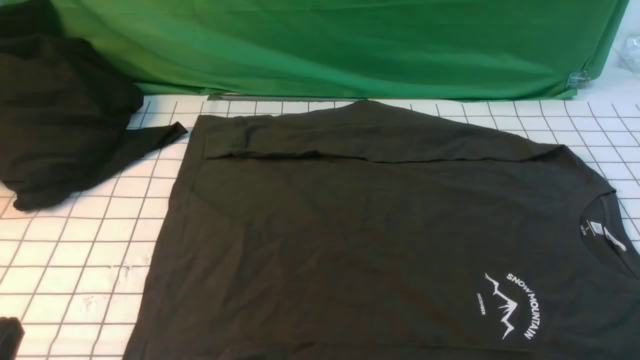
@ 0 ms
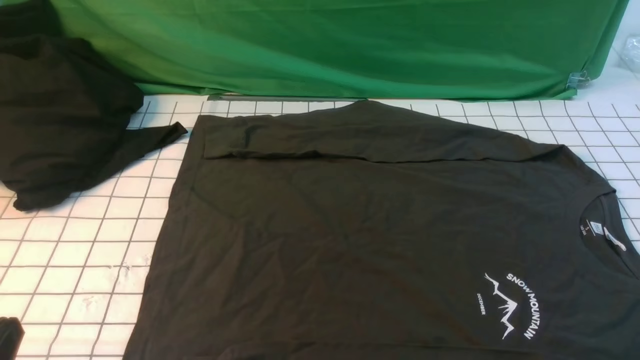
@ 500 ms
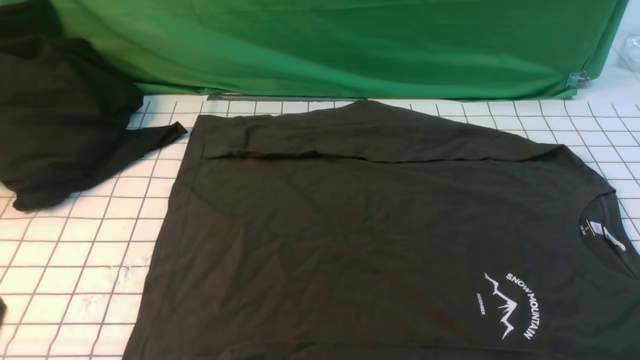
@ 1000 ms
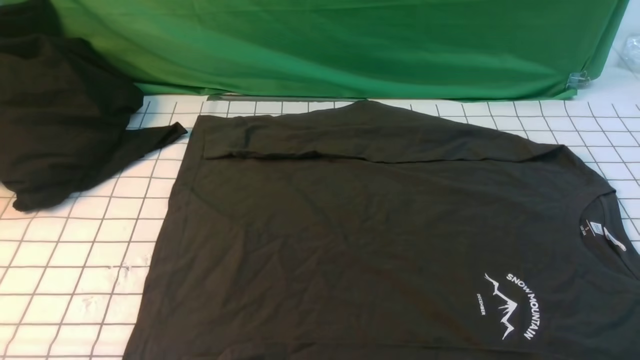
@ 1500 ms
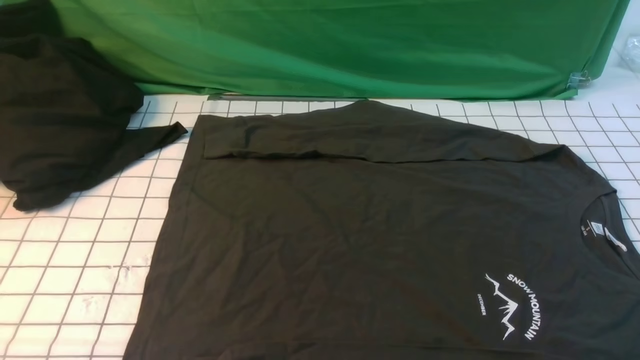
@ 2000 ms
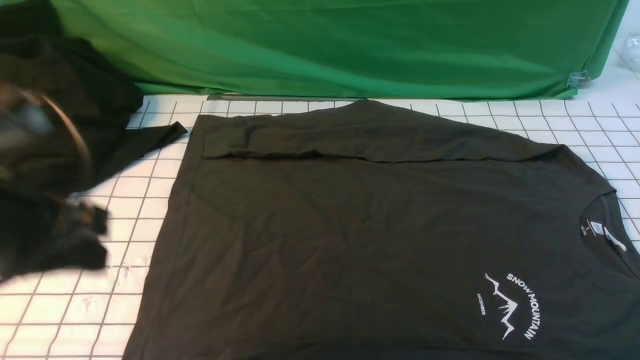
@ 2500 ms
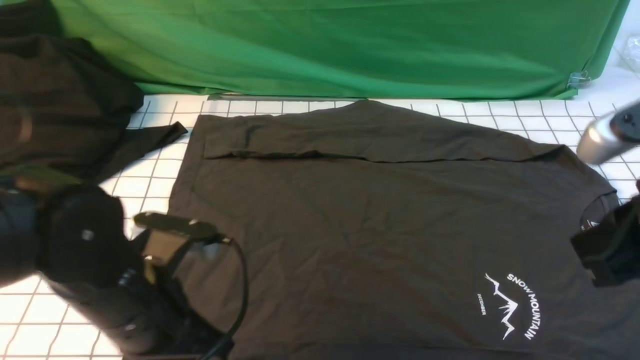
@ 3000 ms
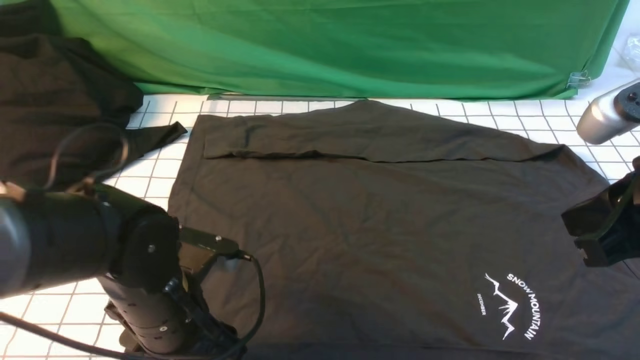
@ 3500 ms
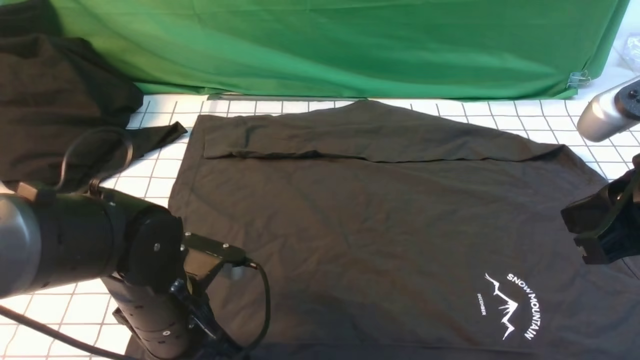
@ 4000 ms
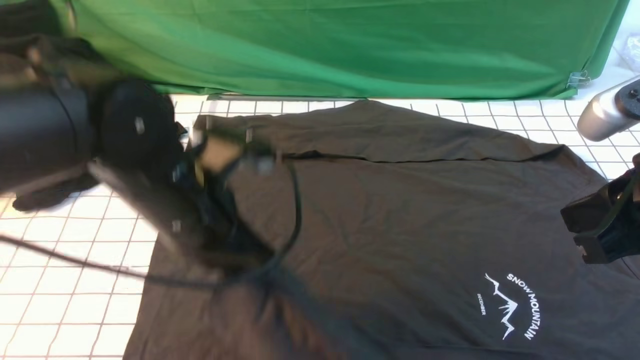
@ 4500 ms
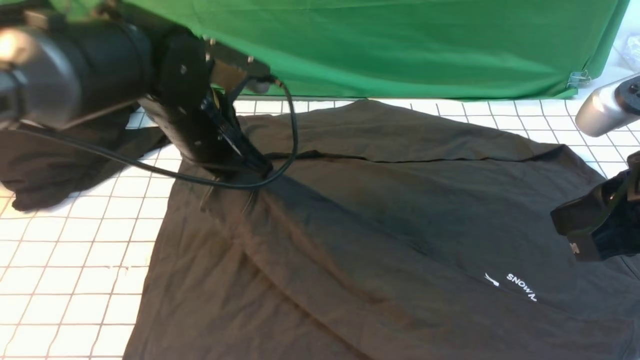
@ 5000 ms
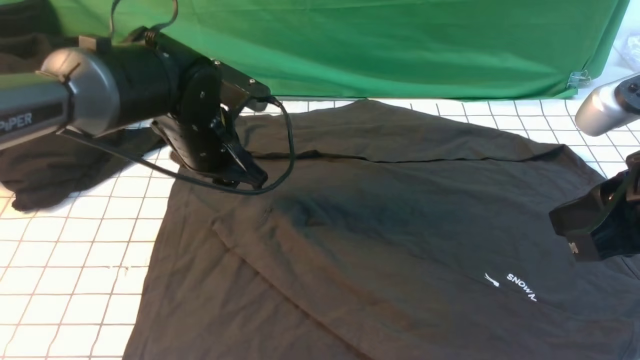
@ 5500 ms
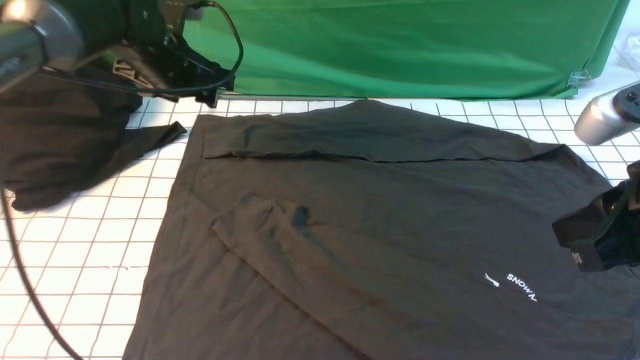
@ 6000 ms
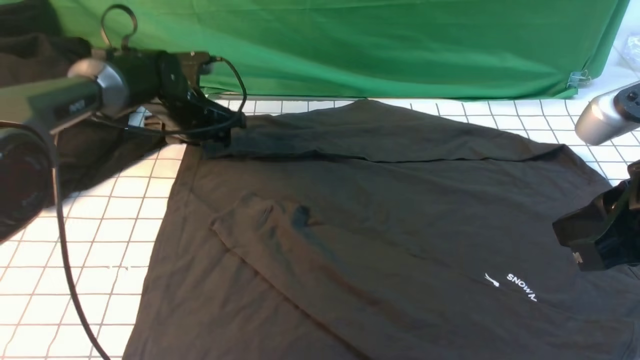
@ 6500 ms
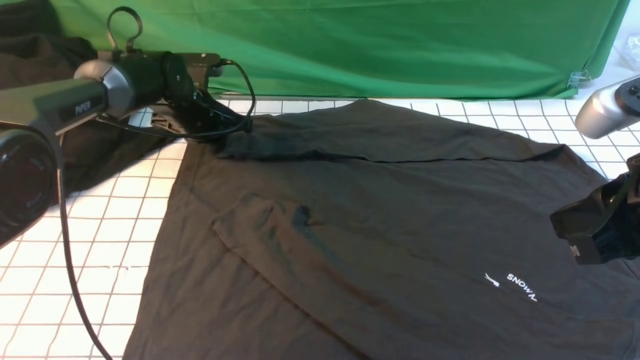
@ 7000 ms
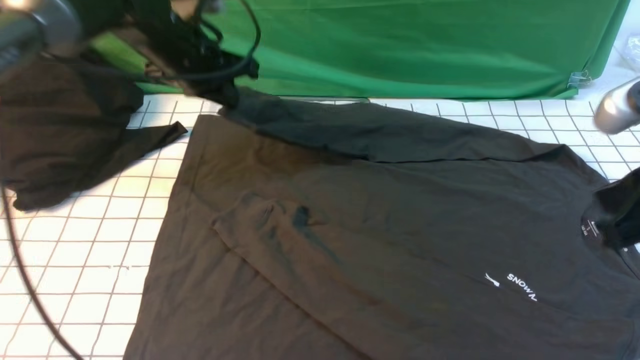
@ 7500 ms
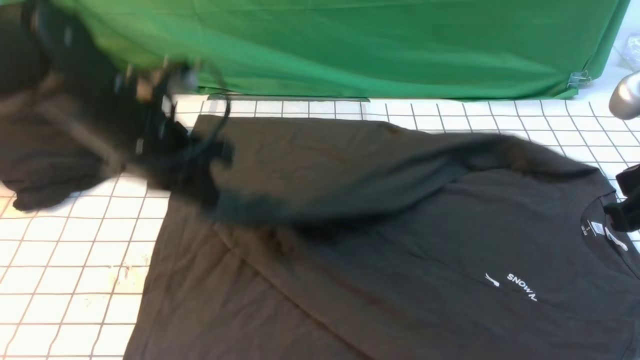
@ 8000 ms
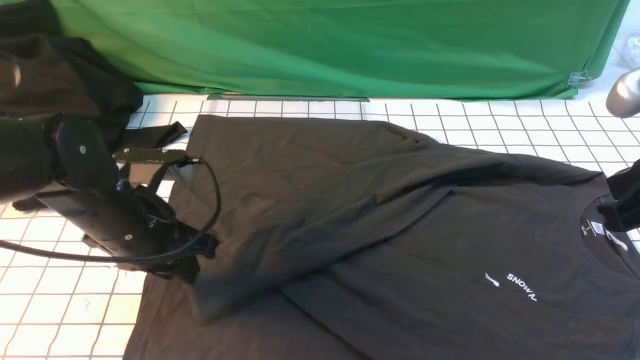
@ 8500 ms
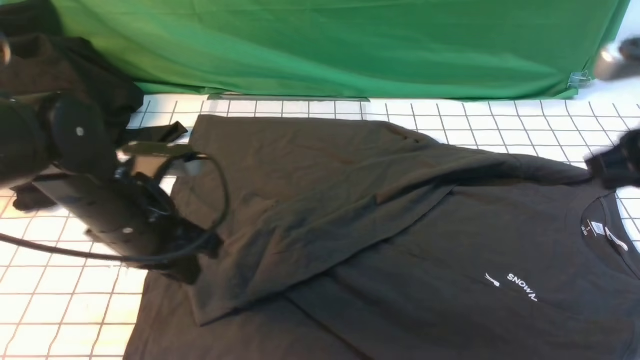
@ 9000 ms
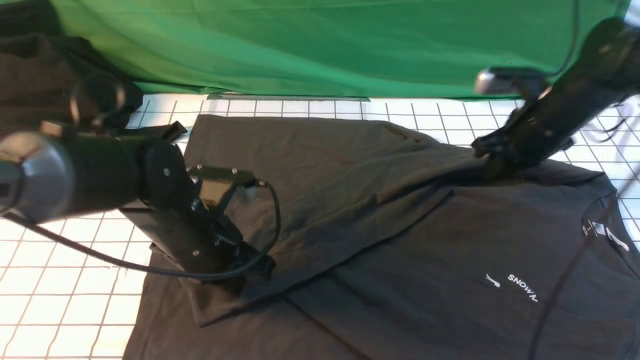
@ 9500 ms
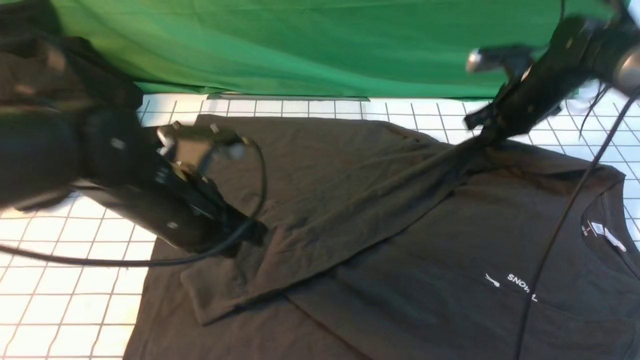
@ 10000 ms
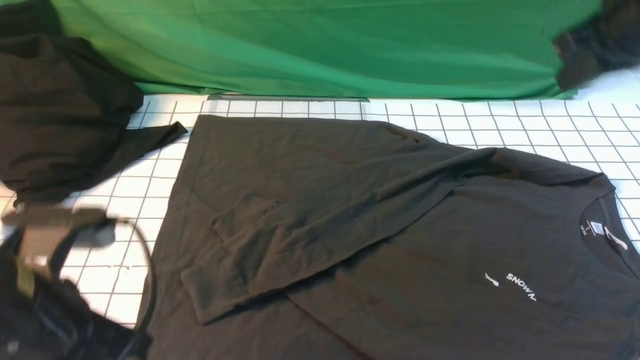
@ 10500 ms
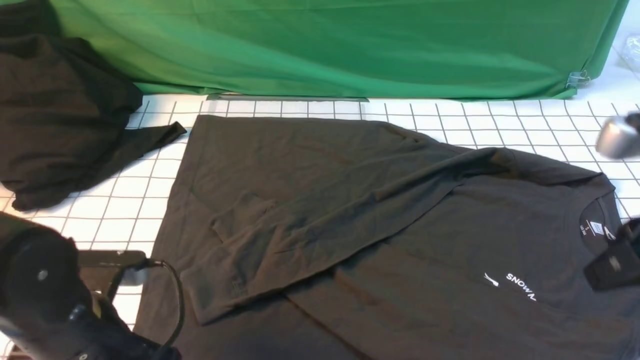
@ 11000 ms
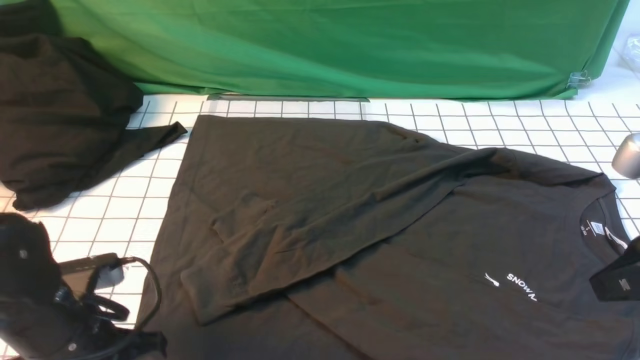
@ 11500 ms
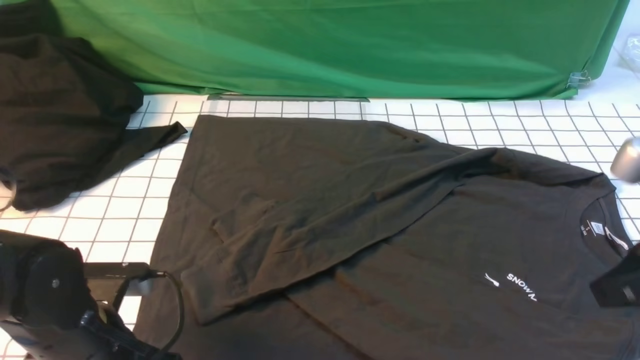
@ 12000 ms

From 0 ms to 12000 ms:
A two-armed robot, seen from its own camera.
Step, from 0 ms to 4000 ms: use the left arm to clamp the cuff closest to it.
Step, from 4500 ms to 5000 ms: use the left arm to drag and place the cuff at the centered position on the left edge of the fabric.
Step, from 5500 ms to 6500 ms: use the left arm to clamp the cuff farthest from it.
Step, from 7000 ms to 8500 ms: use the left arm to drag and drop the cuff onto the cuff closest to the left arm.
From 2000 ms to 4000 ms: The left gripper travels forward, downward and to the right by about 25 cm, and opens and closes again, while the right gripper shifts some 20 cm forward, to the left and upward.
From 4000 ms to 6000 ms: The left gripper heads forward, covering approximately 25 cm, and opens up.
From 6000 ms to 8000 ms: The left gripper travels backward by some 15 cm, and closes up.
From 8000 ms to 10000 ms: The left gripper goes roughly 5 cm backward, travels downward and back again, some 10 cm each way, and opens, then closes once more. The right gripper travels forward by roughly 30 cm.
From 10000 ms to 12000 ms: The left gripper is displaced downward, backward and to the left by approximately 15 cm, and opens and closes again. The right gripper goes some 30 cm backward.

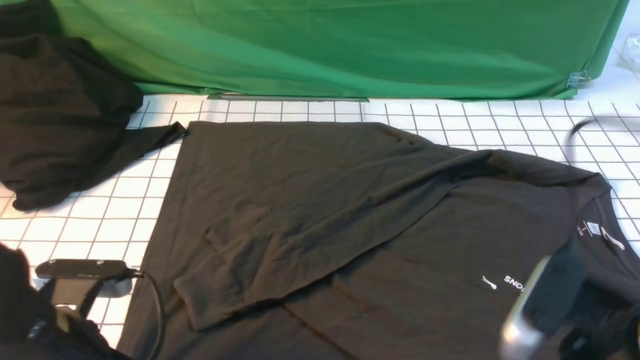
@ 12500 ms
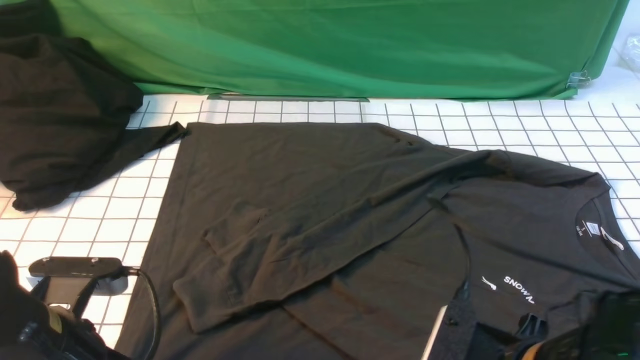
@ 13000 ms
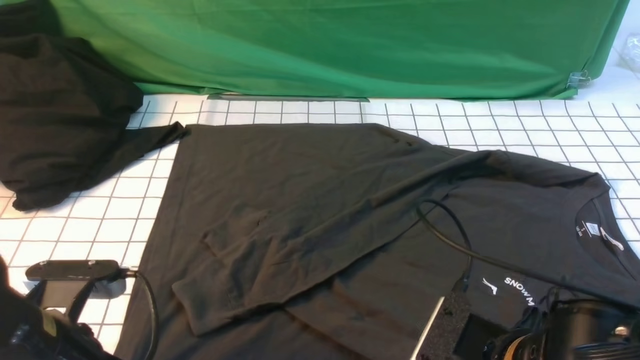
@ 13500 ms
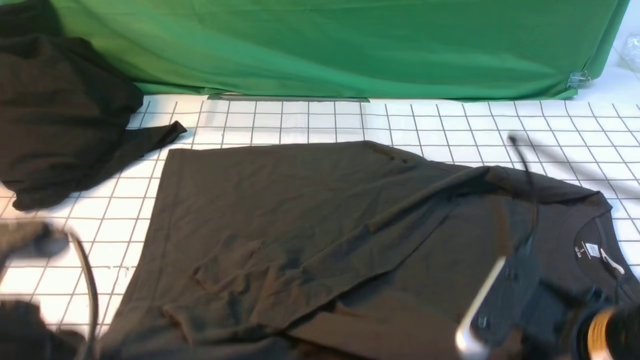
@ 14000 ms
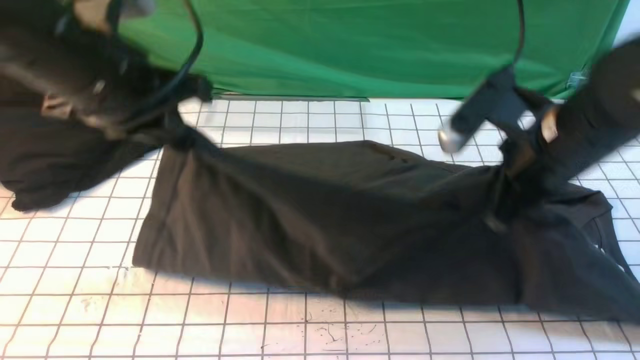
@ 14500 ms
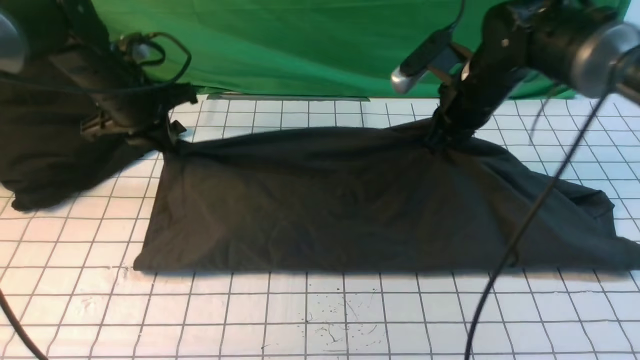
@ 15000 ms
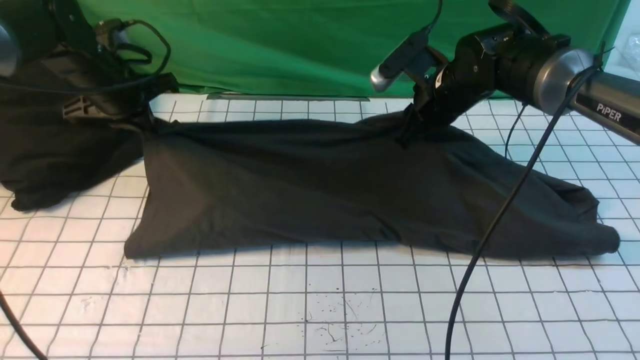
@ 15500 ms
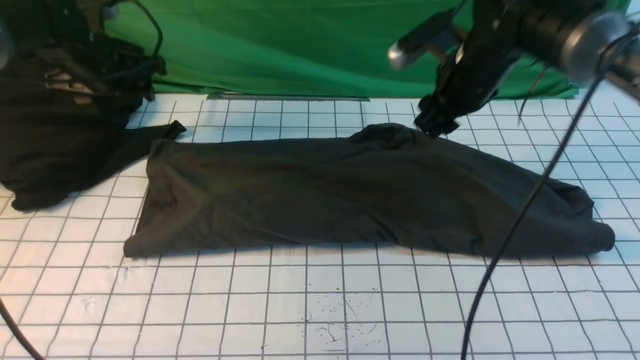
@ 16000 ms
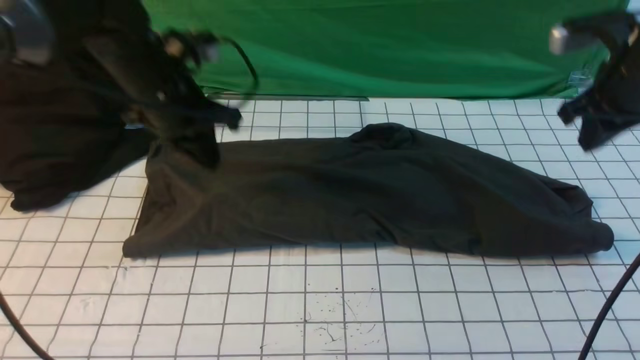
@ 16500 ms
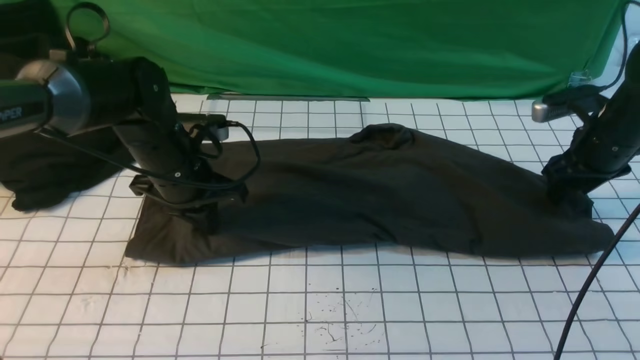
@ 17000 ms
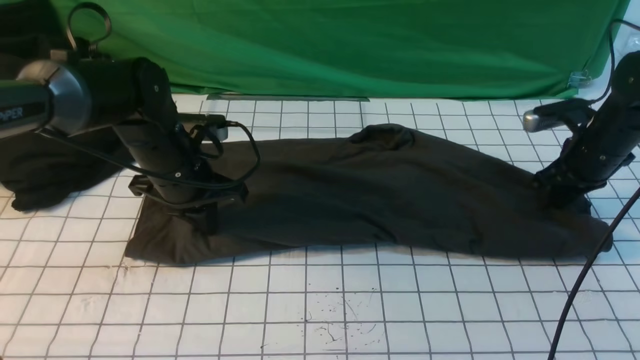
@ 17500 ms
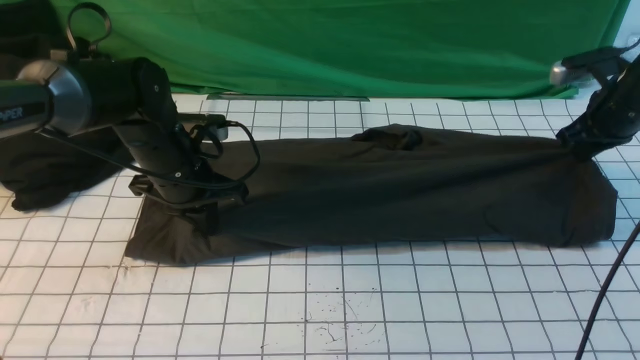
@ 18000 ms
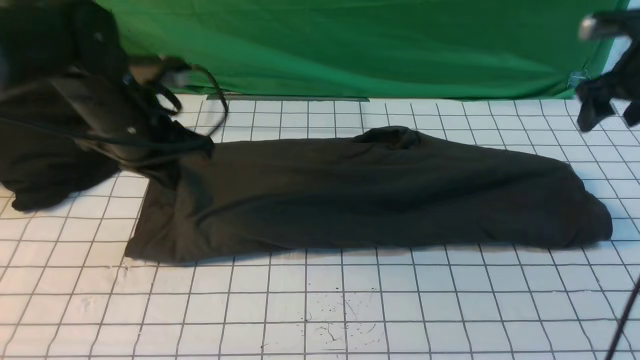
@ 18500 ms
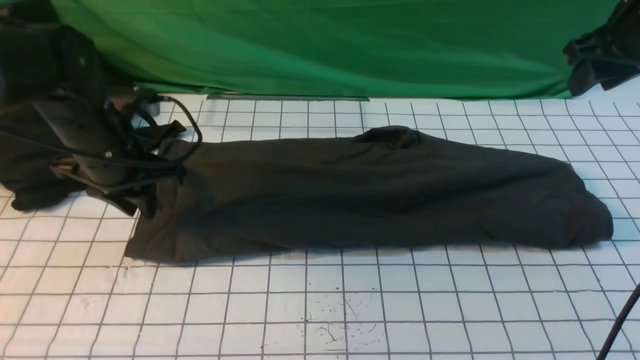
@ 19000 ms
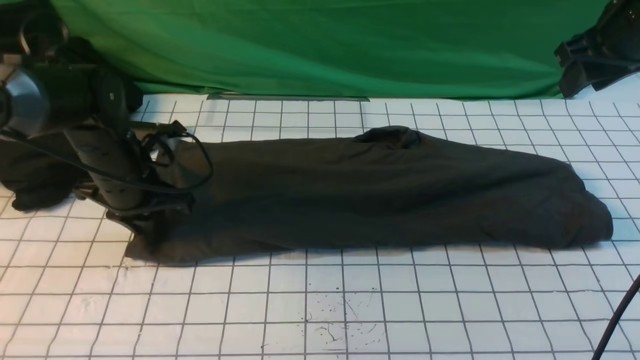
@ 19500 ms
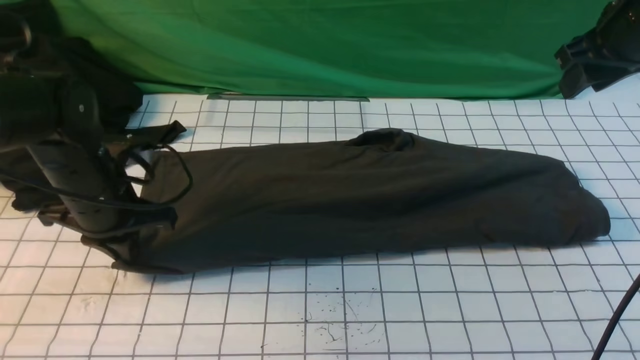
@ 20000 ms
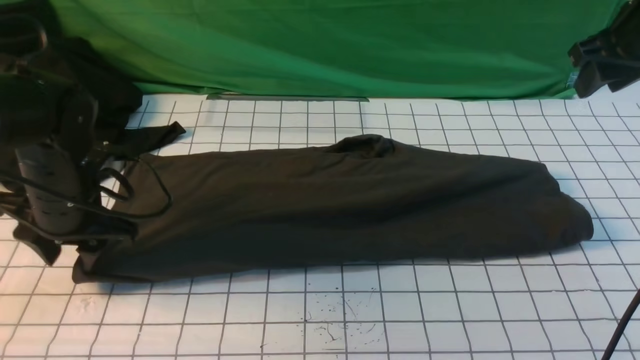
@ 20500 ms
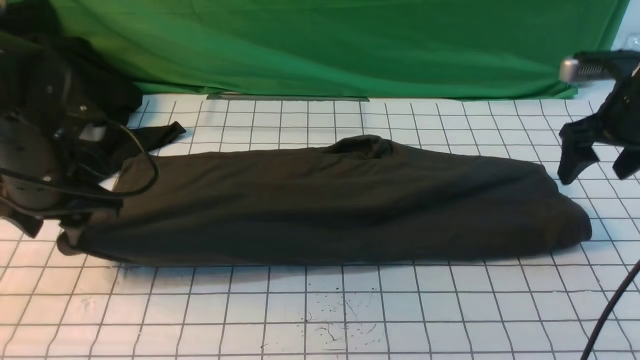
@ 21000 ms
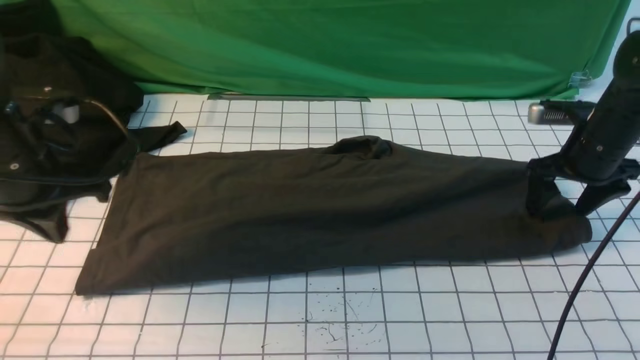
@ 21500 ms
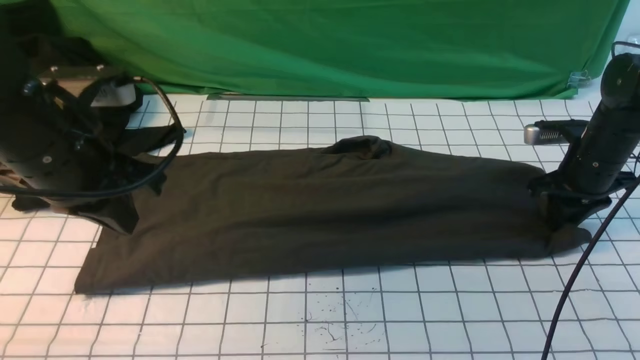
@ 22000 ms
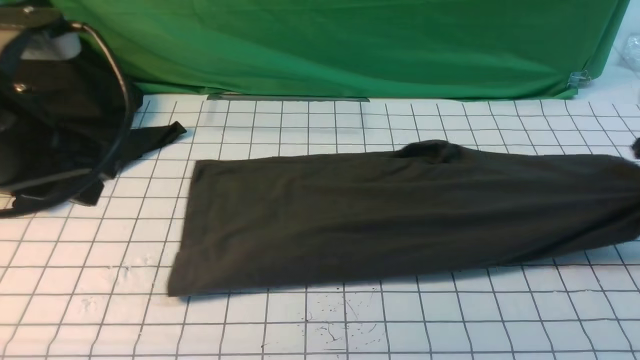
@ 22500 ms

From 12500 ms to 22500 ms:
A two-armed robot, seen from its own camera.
Step, from 13500 ms to 15500 ms: use both arms to drag the lower edge of the fabric forward and fold it over the upper edge.
Step, from 16000 ms to 22000 ms: use the right arm to clamp the right edge of the fabric.
From 12500 ms to 14500 ms: The left gripper is displaced forward and upward by some 20 cm; the right gripper goes roughly 15 cm forward, and opens, then closes once more.
From 14500 ms to 16500 ms: The left gripper travels downward and forward by about 15 cm, and opens, then closes once more; the right gripper moves to the right and forward, some 15 cm.
From 16500 ms to 18500 ms: The right gripper travels downward and back again, about 10 cm each way, and opens its fingers; the left gripper shifts by roughly 5 cm.
From 18500 ms to 20500 ms: The right gripper shifts by about 5 cm. Meanwhile the left gripper is displaced downward and to the left by roughly 10 cm, and opens up.
From 20500 ms to 22500 ms: The right gripper goes about 15 cm to the right and downward, and closes up. Meanwhile the left gripper moves upward and backward, some 20 cm, and closes its fingers.
